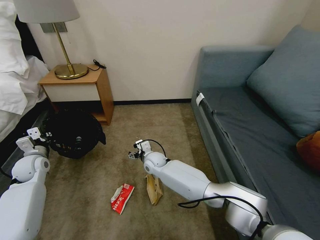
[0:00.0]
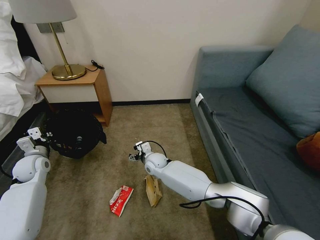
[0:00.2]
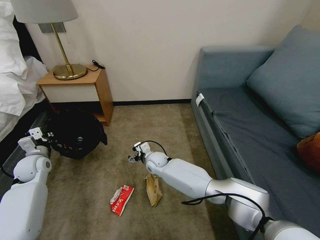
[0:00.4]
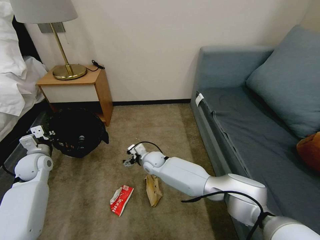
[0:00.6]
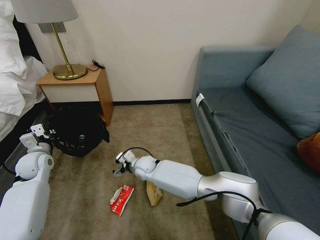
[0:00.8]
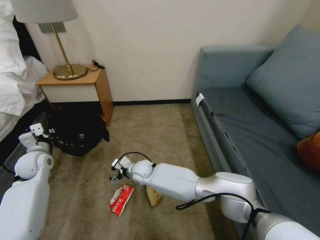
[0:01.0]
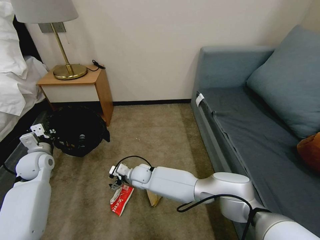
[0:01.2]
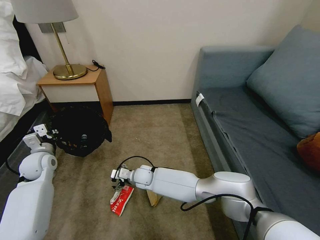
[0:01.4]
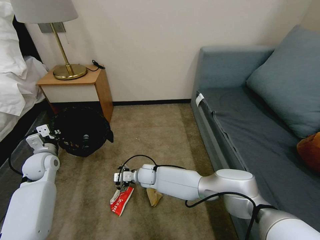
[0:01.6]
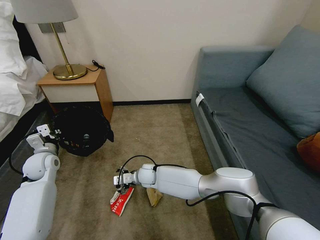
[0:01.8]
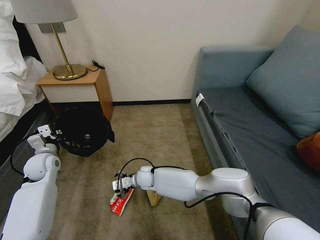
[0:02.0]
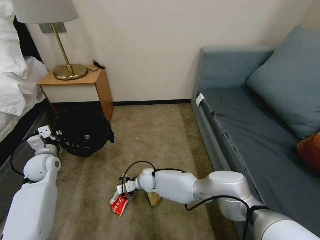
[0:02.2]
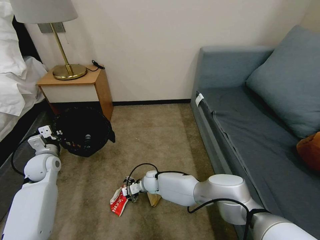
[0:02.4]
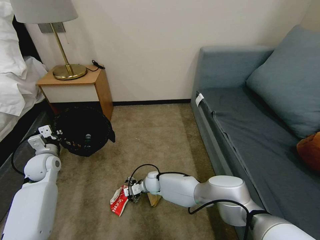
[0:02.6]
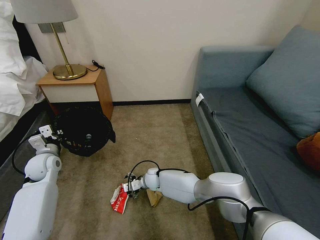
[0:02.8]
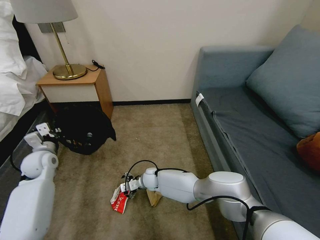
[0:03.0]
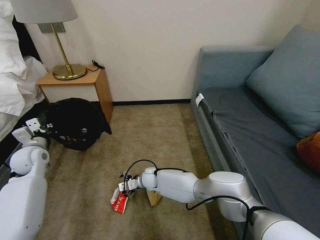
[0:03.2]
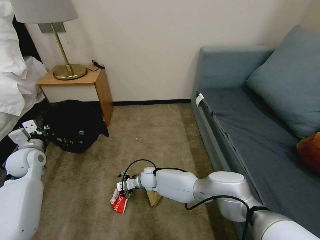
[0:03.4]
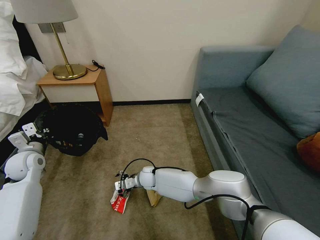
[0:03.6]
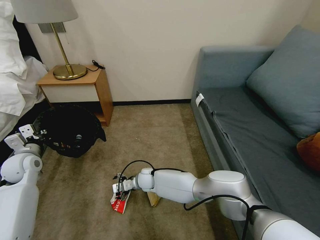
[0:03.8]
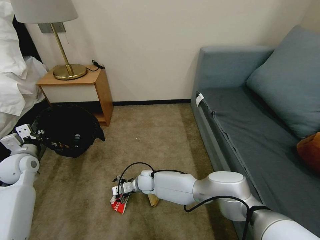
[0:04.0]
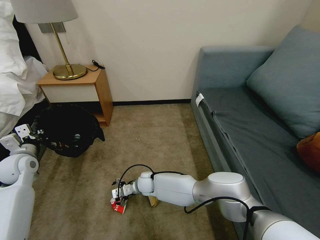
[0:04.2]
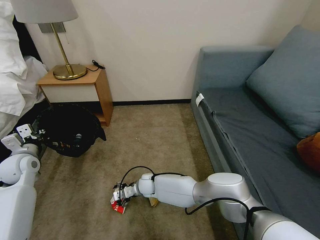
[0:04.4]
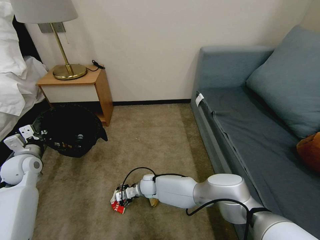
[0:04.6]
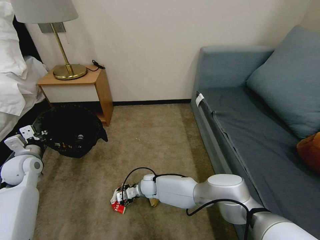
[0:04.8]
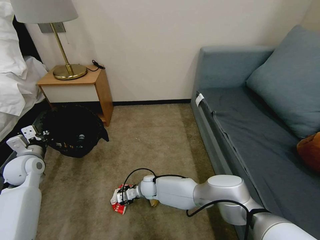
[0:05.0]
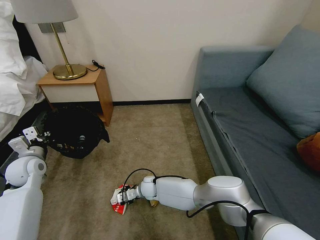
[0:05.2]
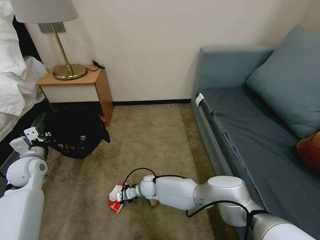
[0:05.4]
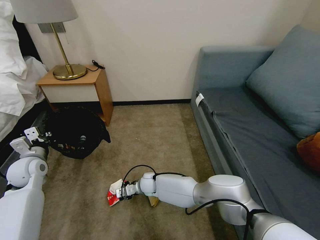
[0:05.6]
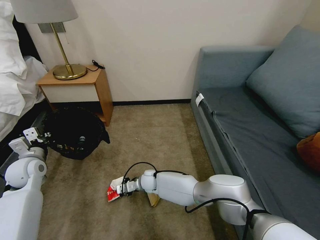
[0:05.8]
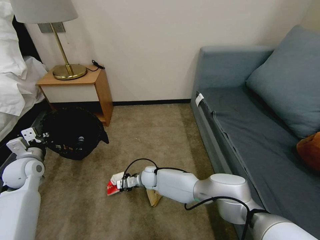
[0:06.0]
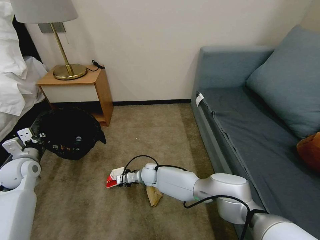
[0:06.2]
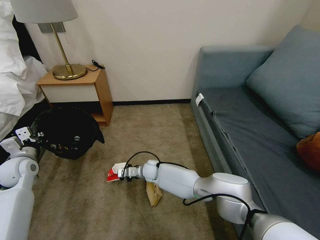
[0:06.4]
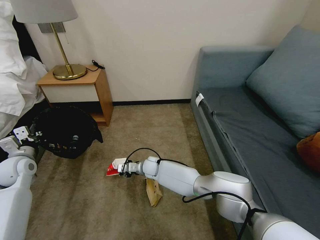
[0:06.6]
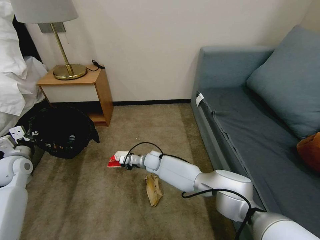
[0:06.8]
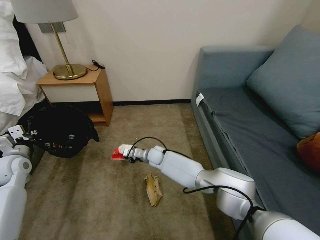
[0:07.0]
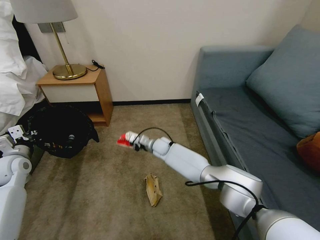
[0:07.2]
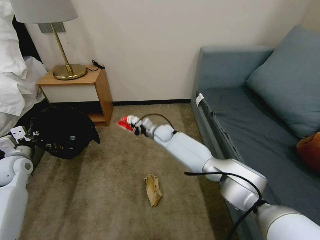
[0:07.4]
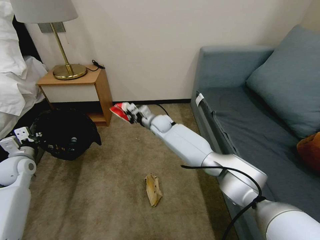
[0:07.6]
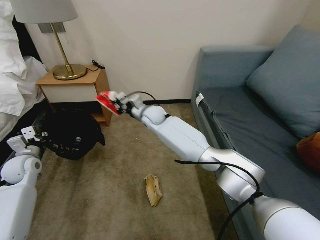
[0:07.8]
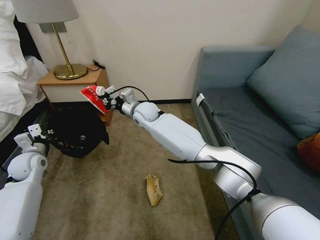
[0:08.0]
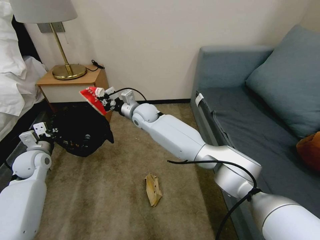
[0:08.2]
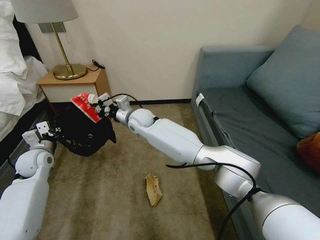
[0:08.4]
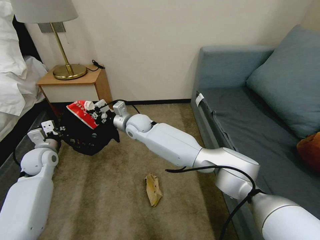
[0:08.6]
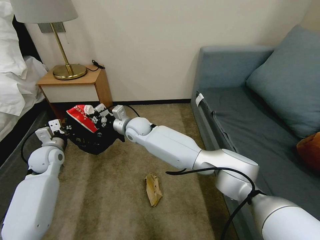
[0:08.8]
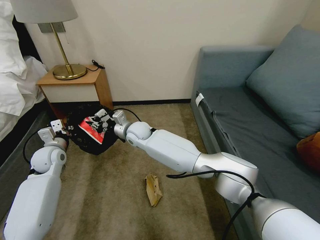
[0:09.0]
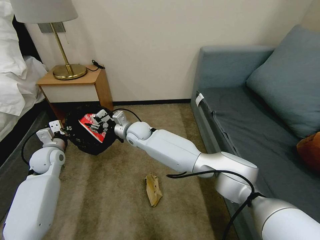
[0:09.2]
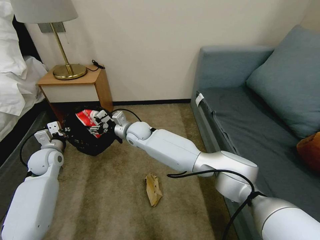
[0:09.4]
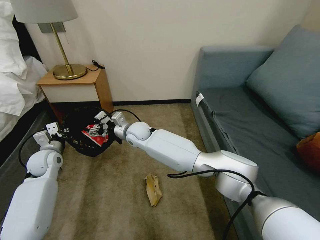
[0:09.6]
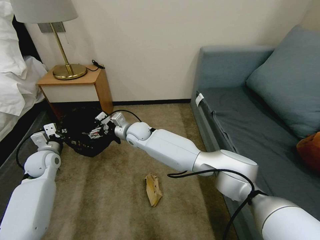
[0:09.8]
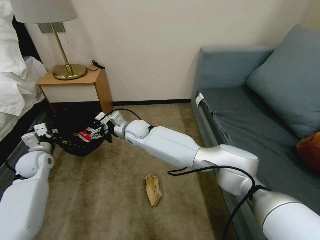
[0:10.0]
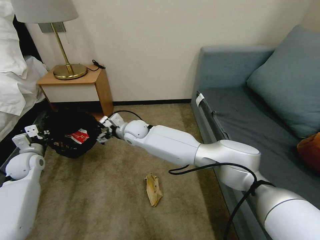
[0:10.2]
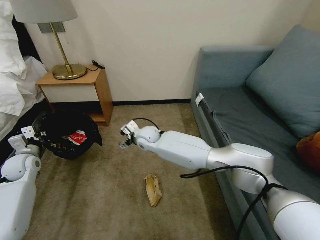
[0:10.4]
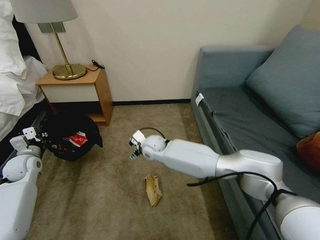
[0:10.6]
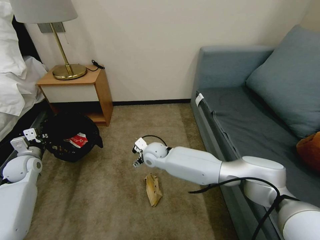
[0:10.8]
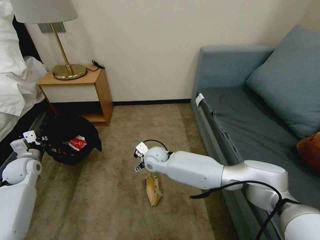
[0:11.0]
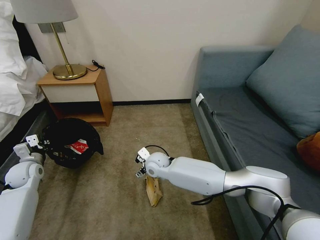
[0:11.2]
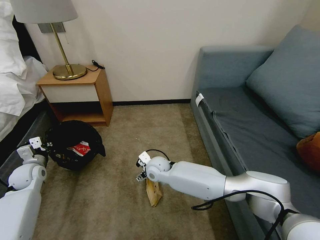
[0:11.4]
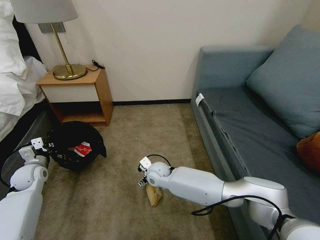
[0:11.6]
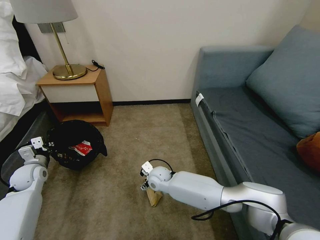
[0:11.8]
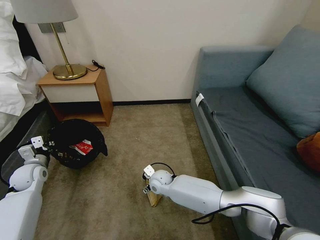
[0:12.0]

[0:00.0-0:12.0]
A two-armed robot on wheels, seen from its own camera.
Task of the whole recording: Pick up the trash bin, then pick up the garbage on the floor and place it into the trash bin.
0:00.0 to 0:01.6: The right gripper ends up approximately 5 cm from where it was.
0:03.0 to 0:04.4: The left gripper shifts by approximately 5 cm.
0:04.4 to 0:06.0: The right gripper closes.
0:06.0 to 0:07.6: The right gripper moves upward and forward, some 20 cm.
0:07.6 to 0:09.0: The left gripper goes roughly 10 cm to the right. The right gripper moves to the left and backward, approximately 10 cm.
0:09.0 to 0:10.4: The right gripper opens; the left gripper heads to the left, covering about 10 cm.
0:10.4 to 0:12.0: The right gripper is displaced downward and backward by some 20 cm.

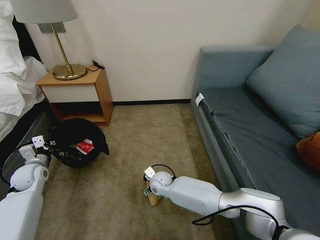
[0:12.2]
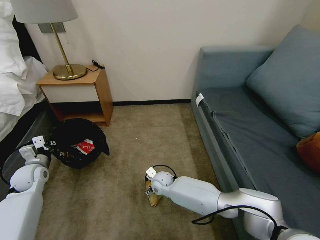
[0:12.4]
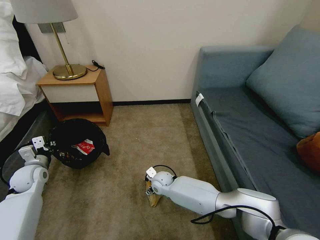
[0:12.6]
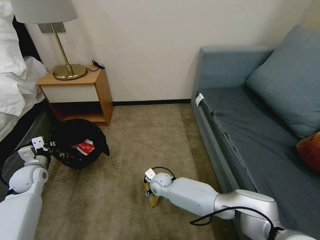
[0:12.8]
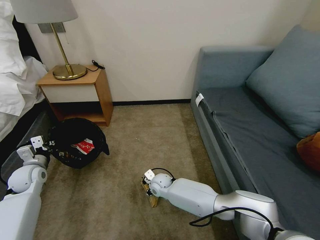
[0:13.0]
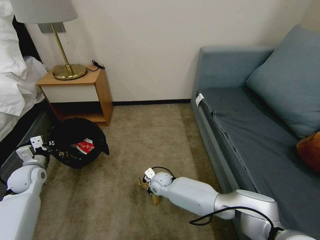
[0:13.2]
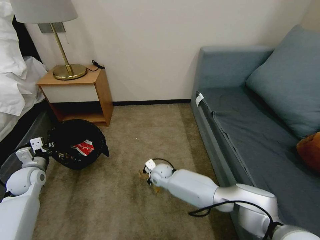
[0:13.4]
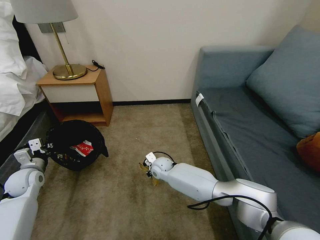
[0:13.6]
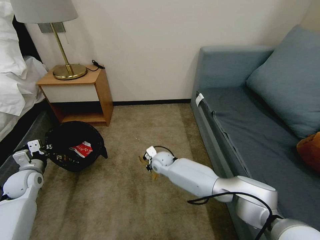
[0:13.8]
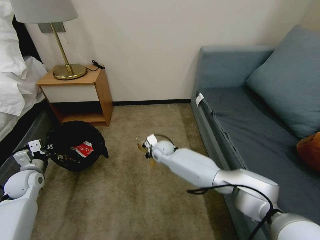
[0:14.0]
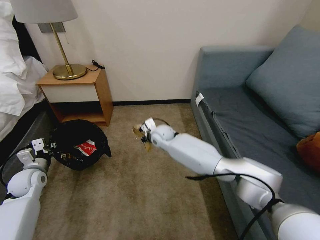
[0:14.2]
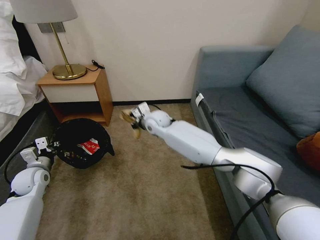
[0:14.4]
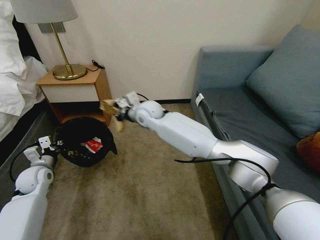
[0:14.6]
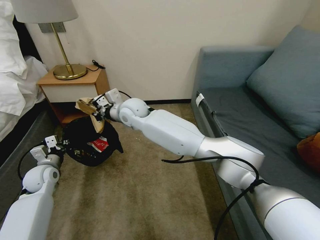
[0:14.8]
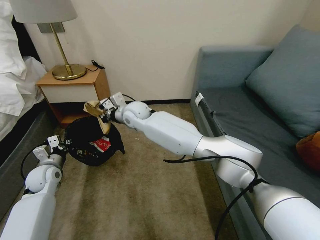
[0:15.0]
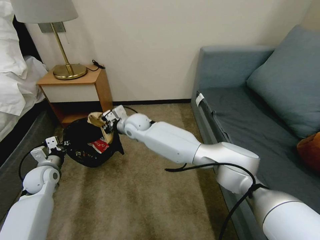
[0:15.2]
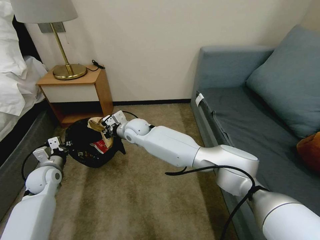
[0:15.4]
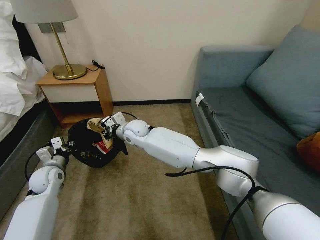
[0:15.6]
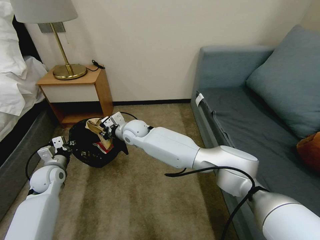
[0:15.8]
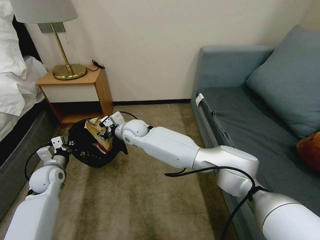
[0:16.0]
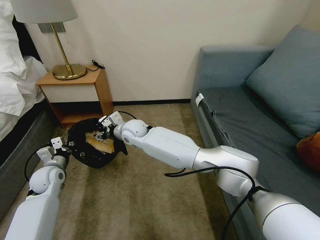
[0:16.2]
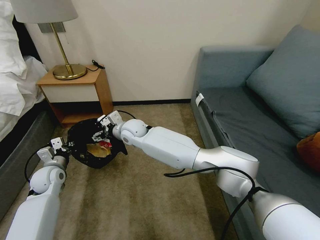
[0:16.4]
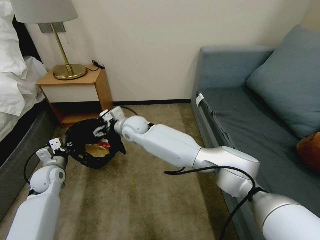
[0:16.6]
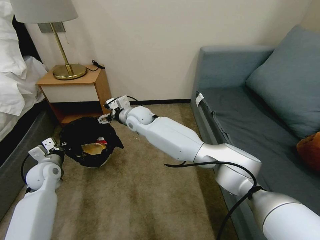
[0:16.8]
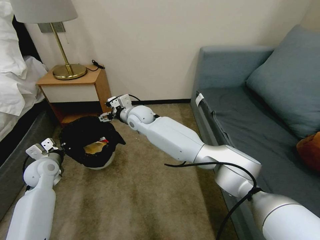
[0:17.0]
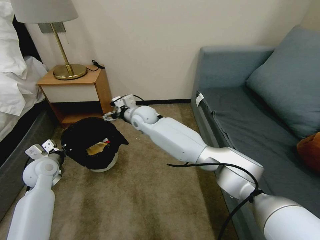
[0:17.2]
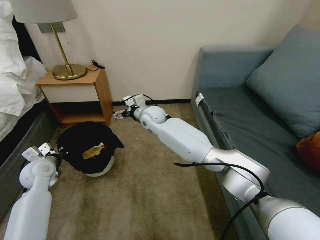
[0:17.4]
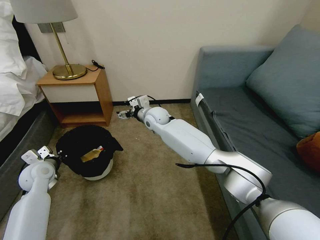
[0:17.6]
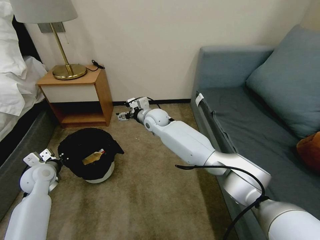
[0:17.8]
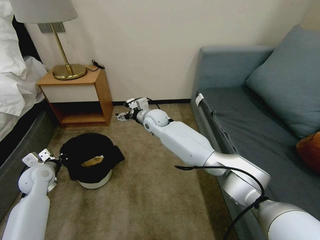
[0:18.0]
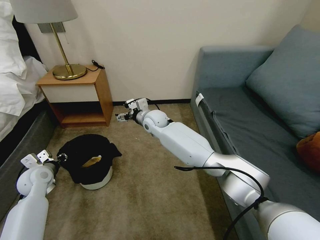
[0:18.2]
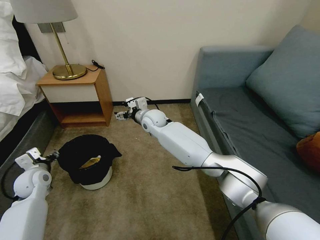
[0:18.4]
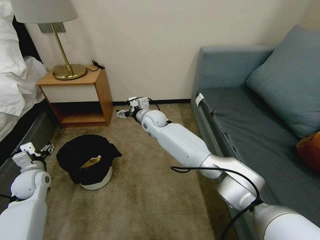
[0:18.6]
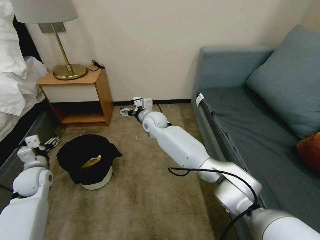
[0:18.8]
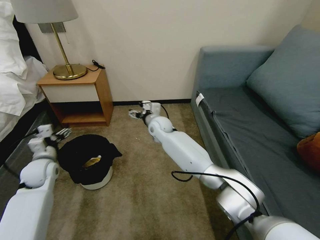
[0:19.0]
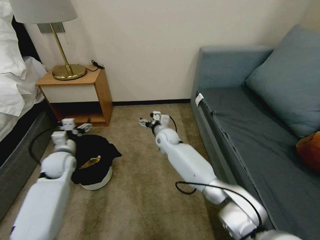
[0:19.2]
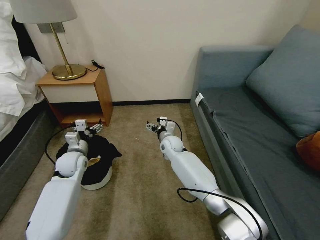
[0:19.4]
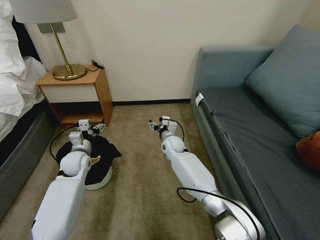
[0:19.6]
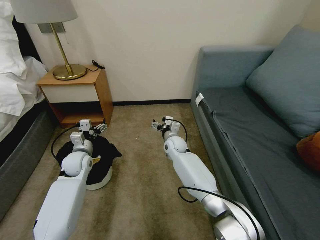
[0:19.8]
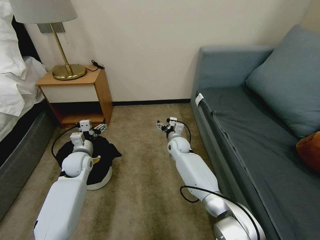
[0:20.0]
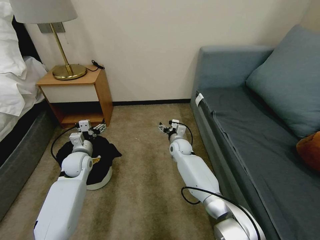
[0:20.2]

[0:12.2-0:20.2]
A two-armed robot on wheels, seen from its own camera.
Task of the whole recording: Pick up the trash bin, then pick up the garbage on the floor and place it into the trash bin.
0:12.2 to 0:13.8: The right gripper travels forward by about 10 cm, and closes up.
0:13.8 to 0:15.4: The right gripper heads upward and to the left, covering roughly 20 cm. The left gripper moves to the right, approximately 5 cm.
0:15.4 to 0:17.0: The right gripper moves approximately 5 cm, and opens its fingers.
0:17.0 to 0:18.6: The left gripper opens. The right gripper is displaced to the right by roughly 5 cm.
0:18.6 to 0:20.2: The left gripper travels to the right and forward by roughly 15 cm; the right gripper is displaced downward and to the right by roughly 20 cm.

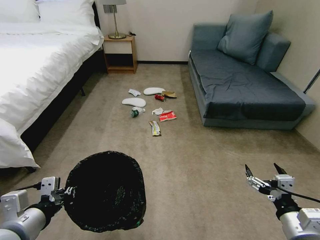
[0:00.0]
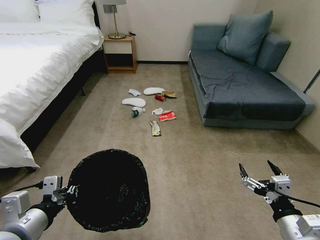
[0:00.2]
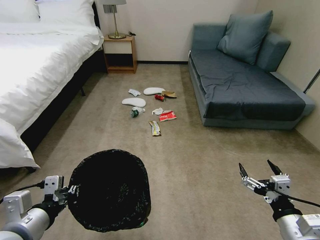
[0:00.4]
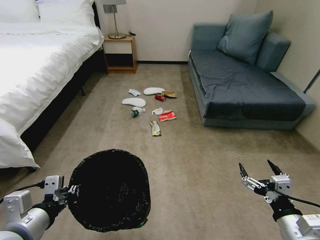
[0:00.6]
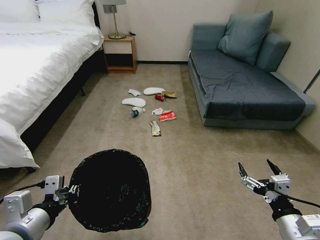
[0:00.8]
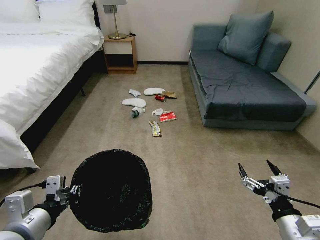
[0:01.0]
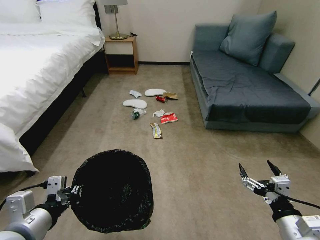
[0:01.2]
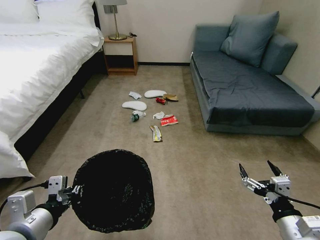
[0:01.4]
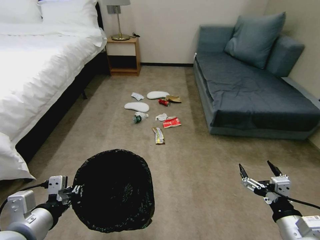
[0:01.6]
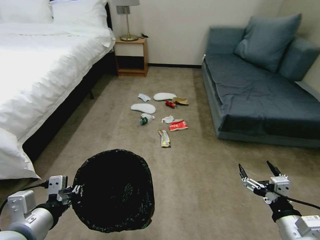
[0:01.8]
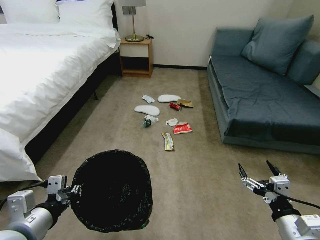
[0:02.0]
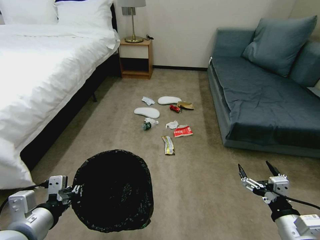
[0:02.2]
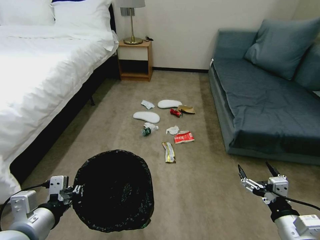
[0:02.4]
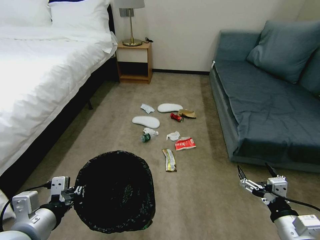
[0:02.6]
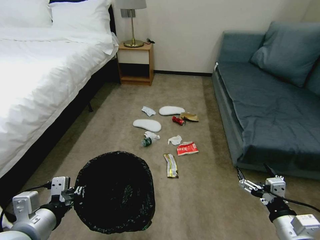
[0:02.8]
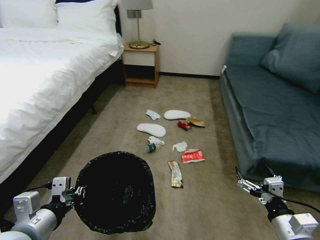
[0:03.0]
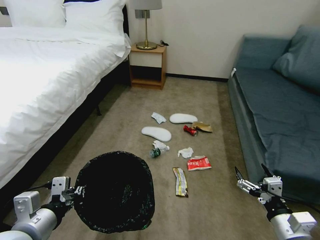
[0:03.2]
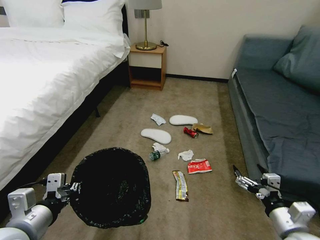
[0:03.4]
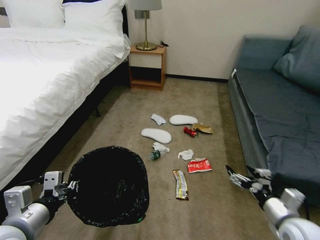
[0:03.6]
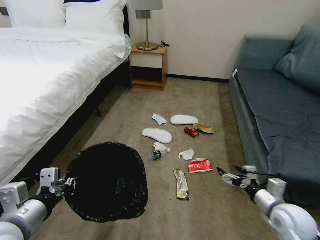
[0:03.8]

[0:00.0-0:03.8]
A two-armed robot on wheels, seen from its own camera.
Task of the whole recording: Pick up the trash bin, then pick up the garbage on the floor and place it into the trash bin.
0:02.6 to 0:03.8: The right gripper heads forward, covering roughly 10 cm.
